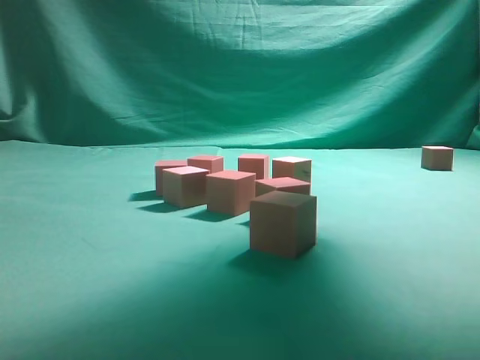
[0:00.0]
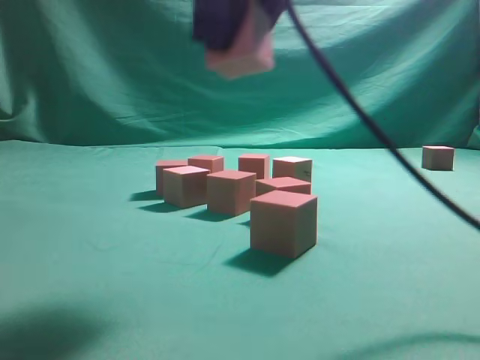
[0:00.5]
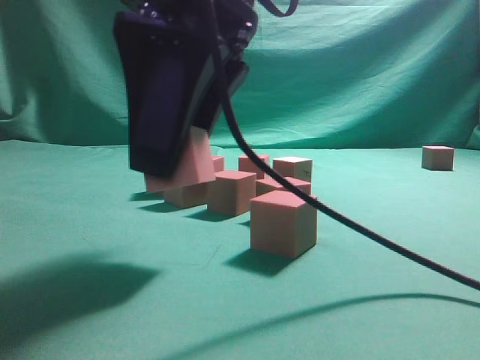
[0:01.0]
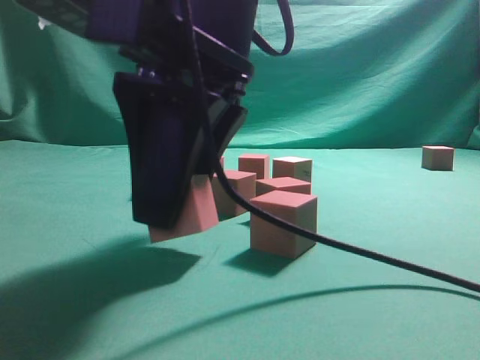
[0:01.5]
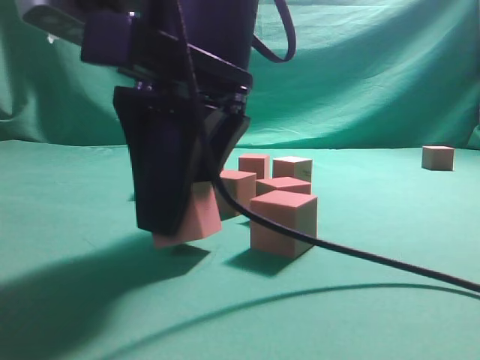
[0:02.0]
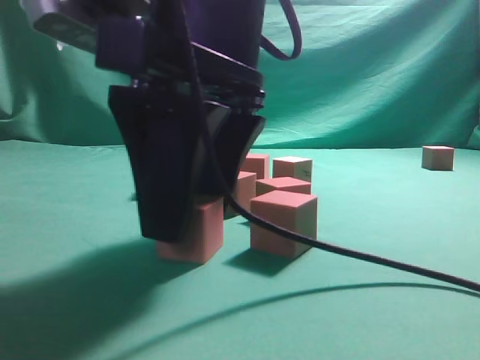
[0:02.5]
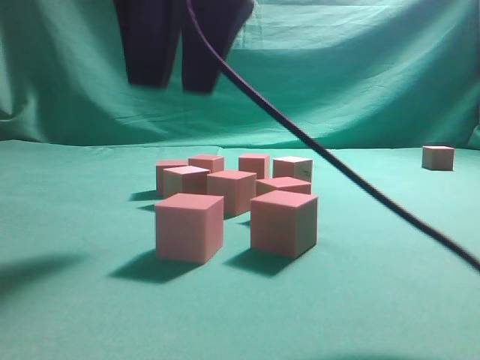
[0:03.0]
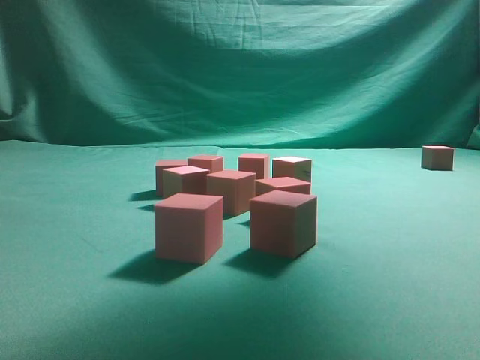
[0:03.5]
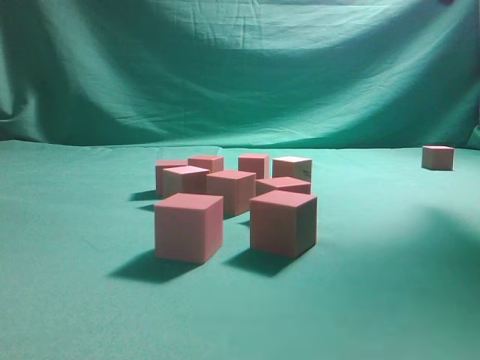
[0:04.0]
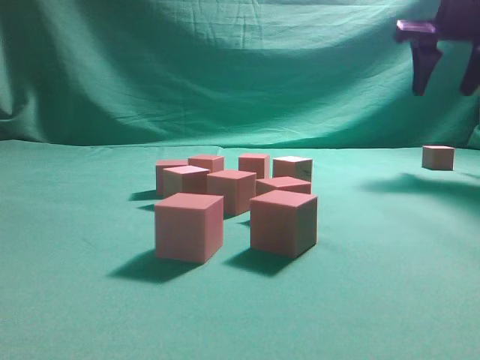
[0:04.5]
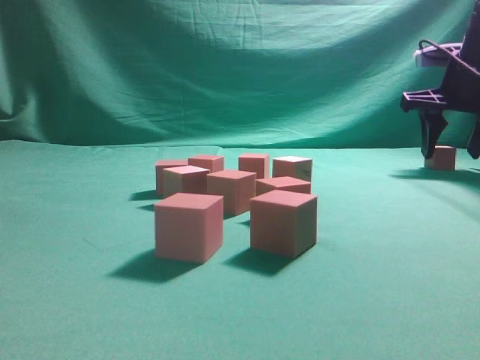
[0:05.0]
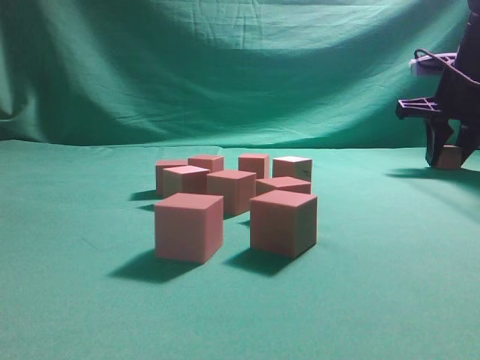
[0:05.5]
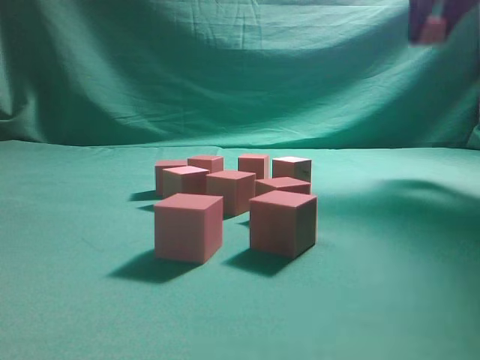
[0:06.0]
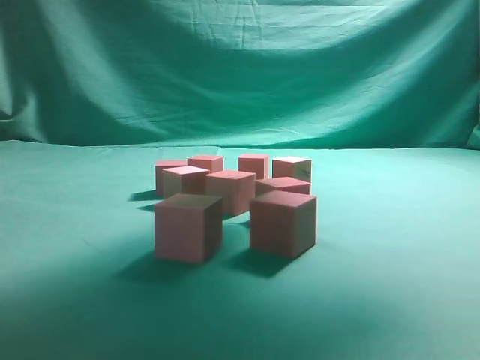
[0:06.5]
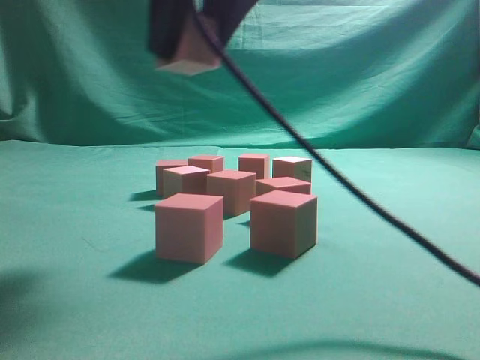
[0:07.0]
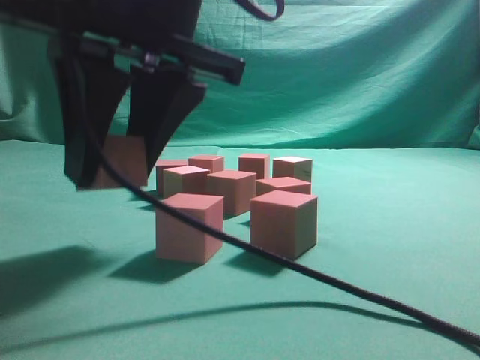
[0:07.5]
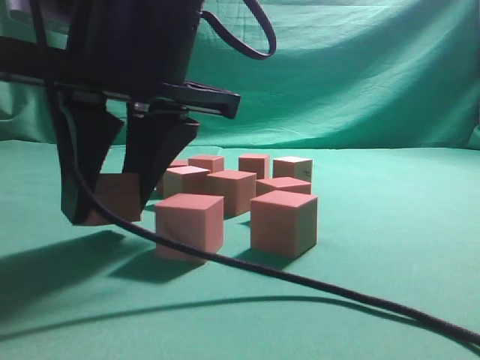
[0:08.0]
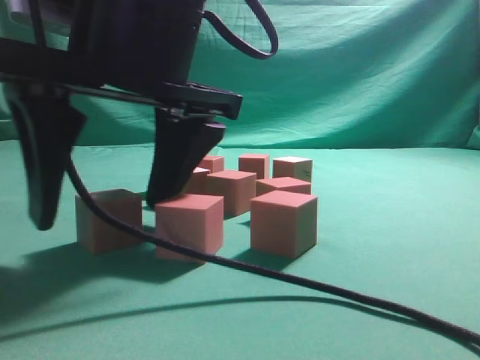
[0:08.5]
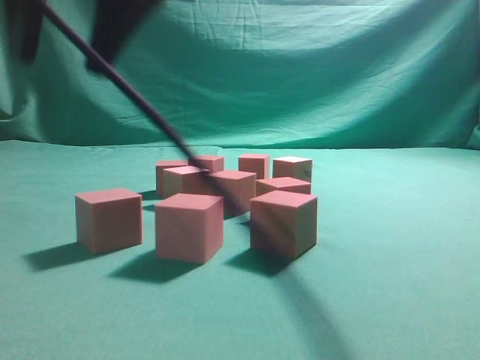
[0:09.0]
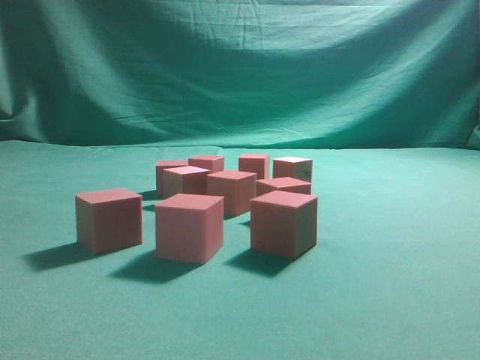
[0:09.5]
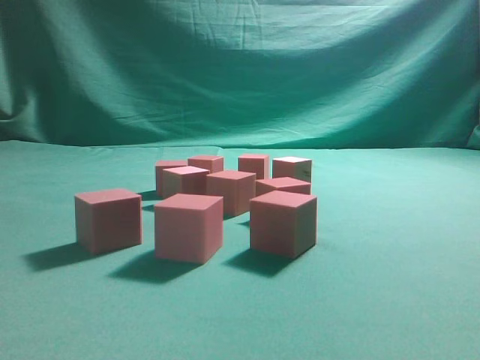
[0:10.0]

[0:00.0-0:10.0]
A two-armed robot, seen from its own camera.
Task of the whole recording: pick up the multiple cubes in two columns one by one and place them in another position on the table.
Step, 0:00.0 to 0:02.5: Place the block at the correct position to assemble the letter S.
Step, 0:03.0 to 0:05.5: Pick up the block on the table.
Step, 0:06.0 to 0:08.5: Place the block at the correct position to assemble the letter S.
0:00.0 to 0:02.0: The right gripper heads downward, to the left and backward, covering about 25 cm.
0:02.0 to 0:04.0: The right gripper heads to the right, forward and upward, covering about 35 cm.
0:04.0 to 0:06.0: The right gripper travels forward by about 5 cm, and travels downward and back again, roughly 20 cm each way.
0:06.0 to 0:08.0: The right gripper travels to the left, backward and downward by some 40 cm.
0:08.0 to 0:10.0: The right gripper heads upward and to the right, covering approximately 40 cm, and closes up.
